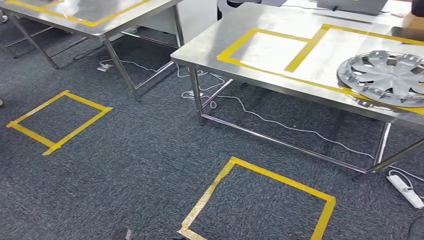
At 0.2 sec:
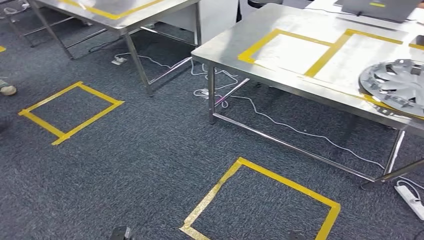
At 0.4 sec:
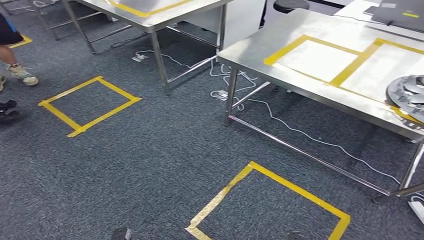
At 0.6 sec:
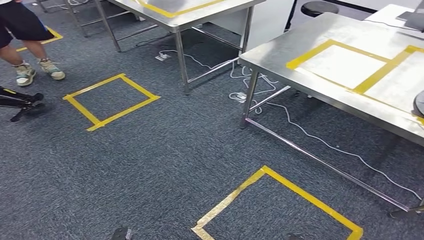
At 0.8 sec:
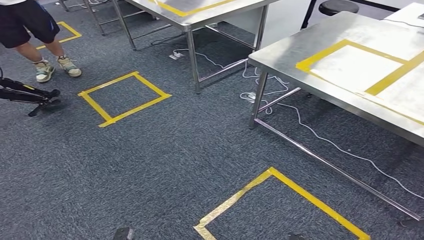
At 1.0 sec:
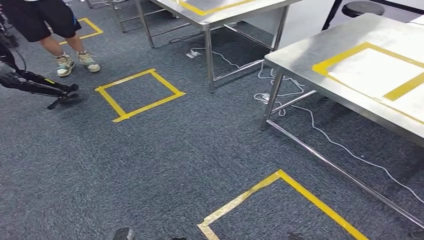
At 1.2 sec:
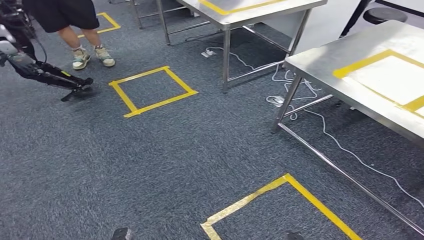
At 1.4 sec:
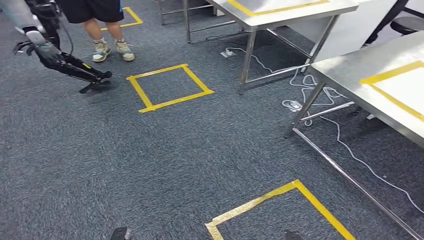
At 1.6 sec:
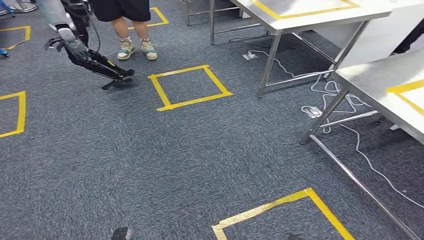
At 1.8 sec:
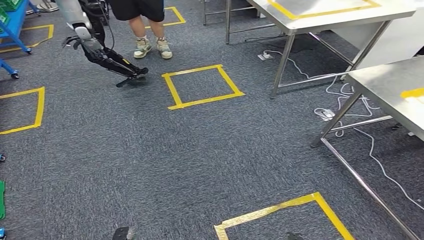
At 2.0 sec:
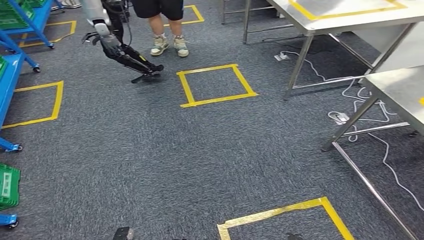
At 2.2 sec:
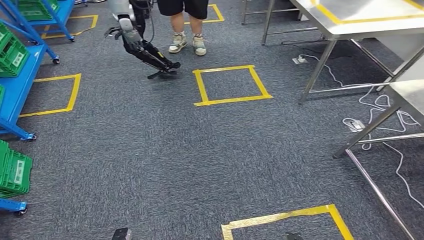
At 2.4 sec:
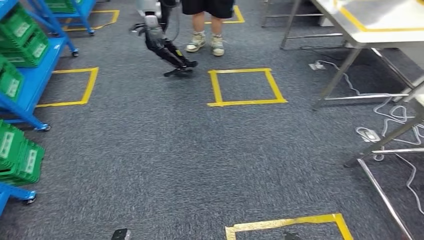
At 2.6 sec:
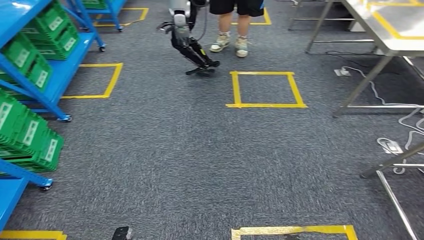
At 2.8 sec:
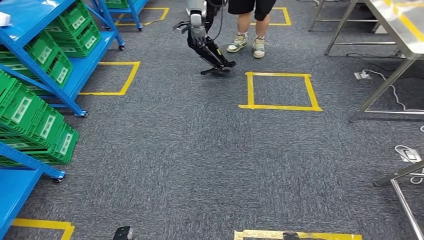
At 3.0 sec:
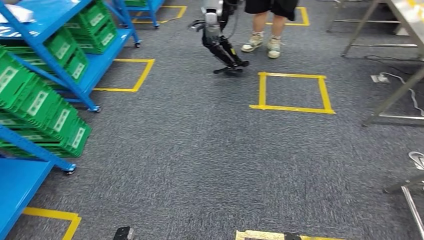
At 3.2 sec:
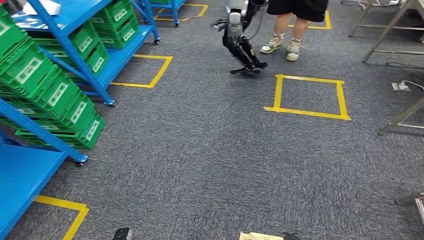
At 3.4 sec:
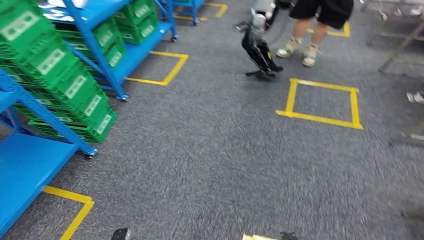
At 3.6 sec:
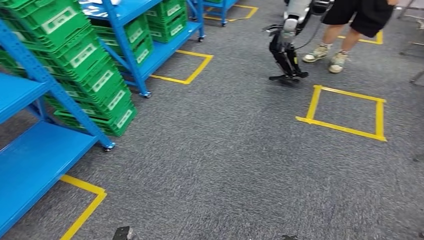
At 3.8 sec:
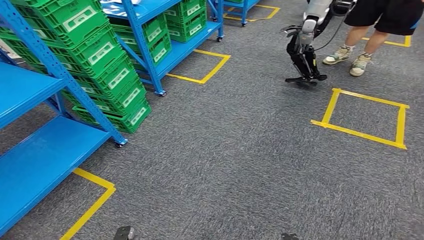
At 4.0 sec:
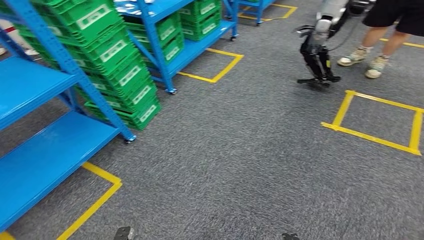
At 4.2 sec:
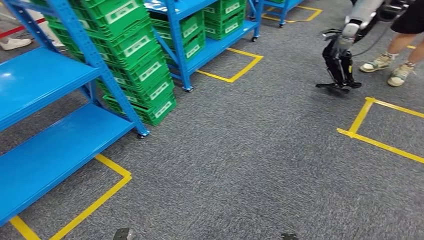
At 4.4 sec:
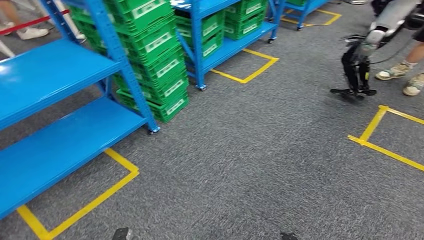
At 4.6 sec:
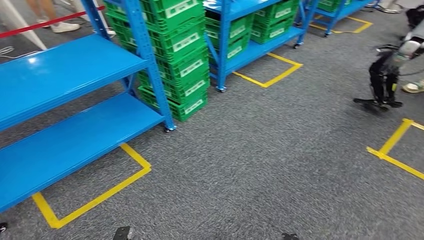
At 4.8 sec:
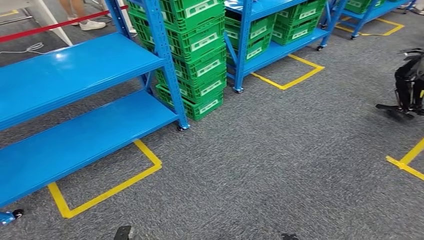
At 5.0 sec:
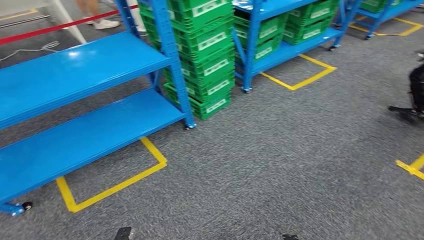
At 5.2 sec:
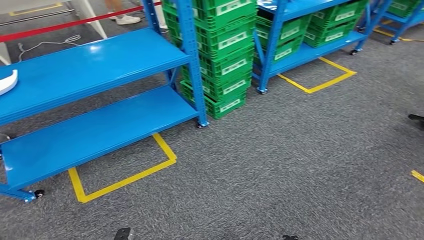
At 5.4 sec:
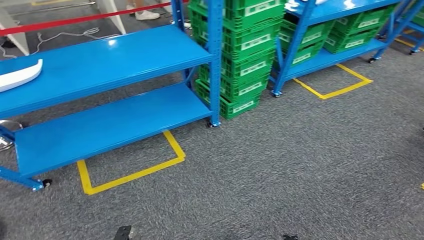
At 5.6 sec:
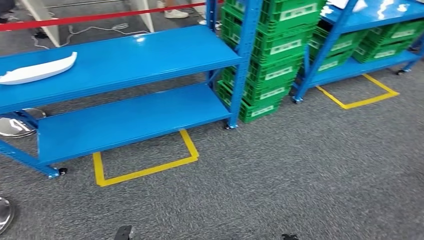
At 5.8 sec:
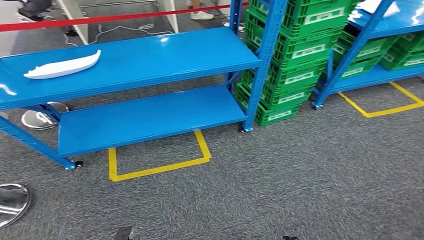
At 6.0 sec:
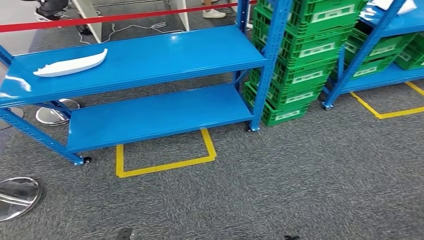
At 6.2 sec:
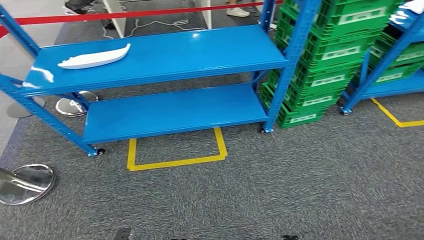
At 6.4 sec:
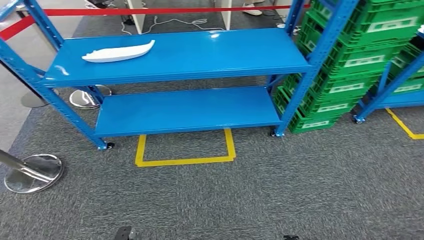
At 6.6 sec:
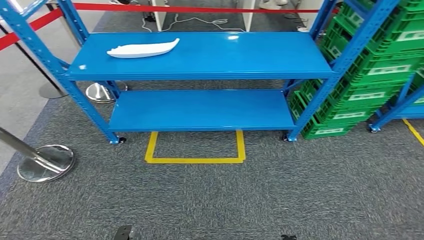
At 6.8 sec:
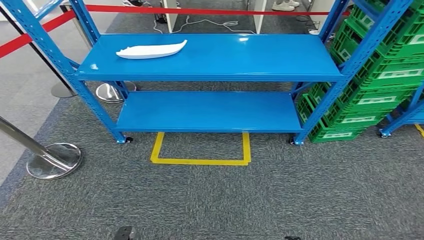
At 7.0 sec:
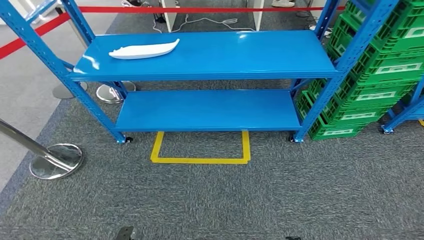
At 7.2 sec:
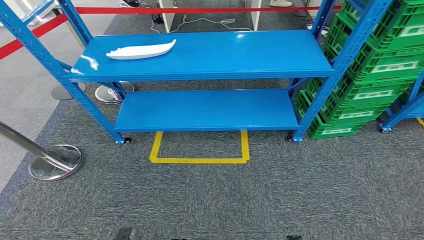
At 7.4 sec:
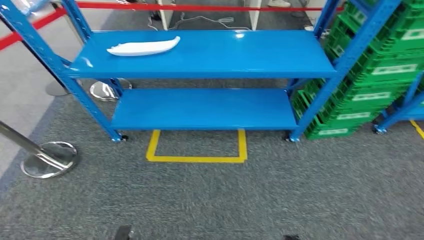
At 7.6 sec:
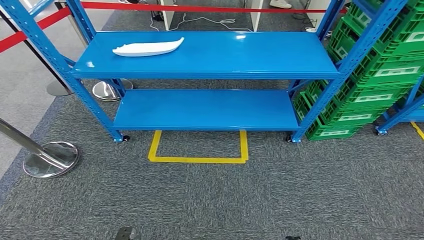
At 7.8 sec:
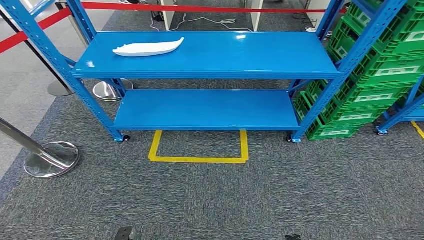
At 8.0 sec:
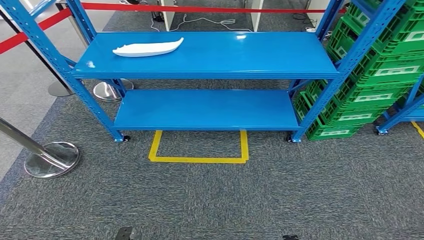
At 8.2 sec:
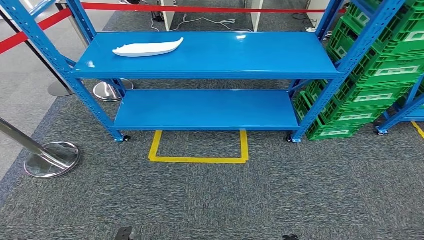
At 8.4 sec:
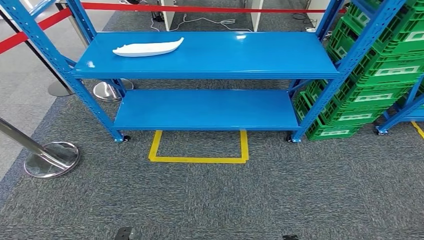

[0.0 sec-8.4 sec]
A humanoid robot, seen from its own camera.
Step, 0.0 sec to 8.4 sec: Return to the initial position at the workbench.
7.0 sec to 8.4 sec: The hands make only small movements.
